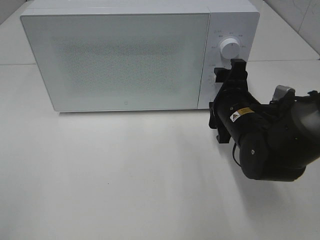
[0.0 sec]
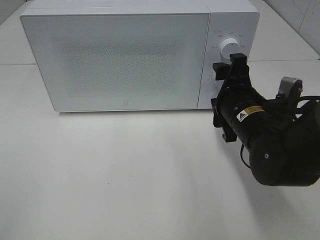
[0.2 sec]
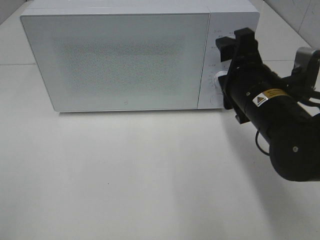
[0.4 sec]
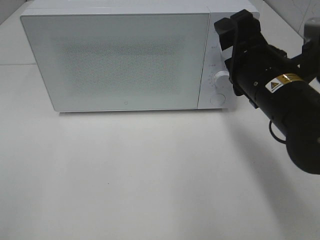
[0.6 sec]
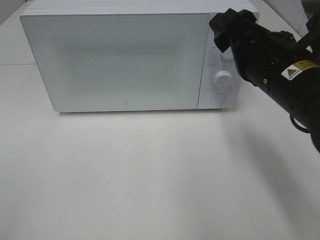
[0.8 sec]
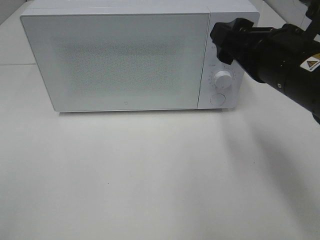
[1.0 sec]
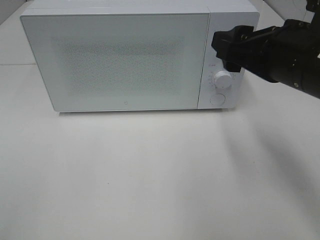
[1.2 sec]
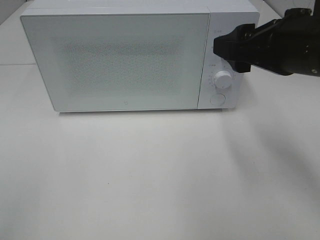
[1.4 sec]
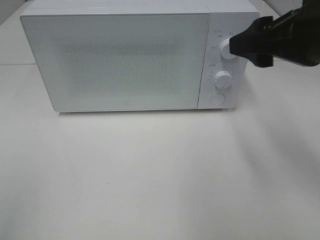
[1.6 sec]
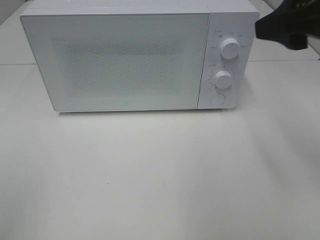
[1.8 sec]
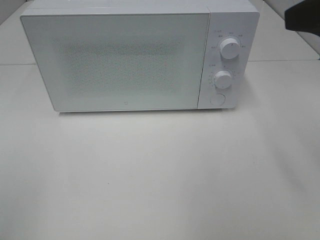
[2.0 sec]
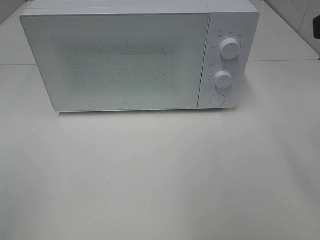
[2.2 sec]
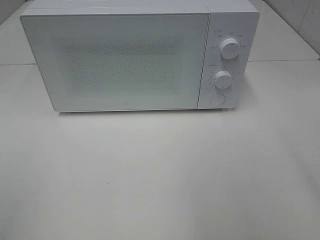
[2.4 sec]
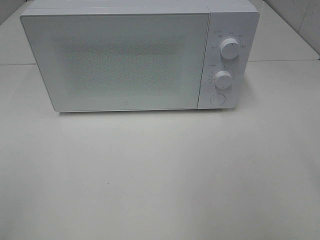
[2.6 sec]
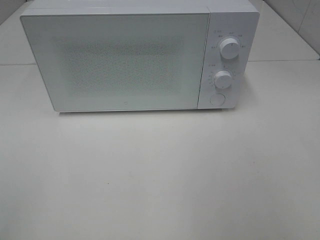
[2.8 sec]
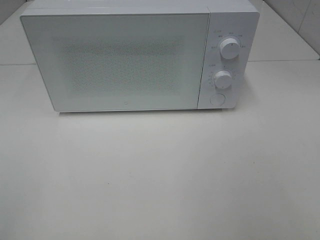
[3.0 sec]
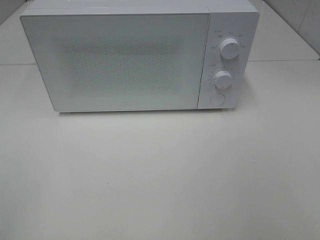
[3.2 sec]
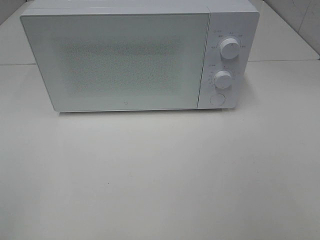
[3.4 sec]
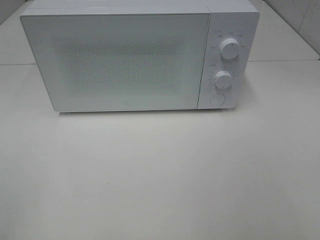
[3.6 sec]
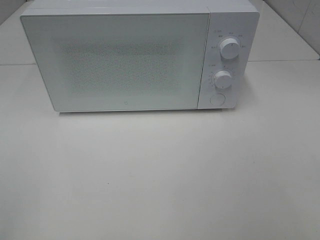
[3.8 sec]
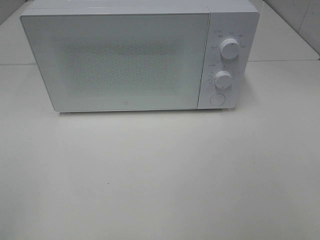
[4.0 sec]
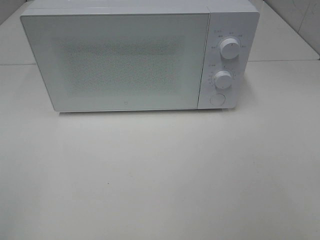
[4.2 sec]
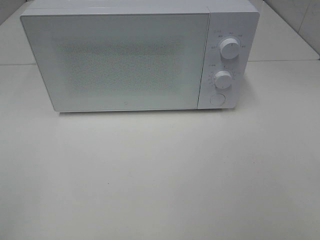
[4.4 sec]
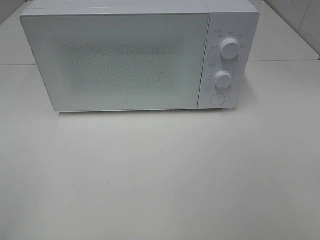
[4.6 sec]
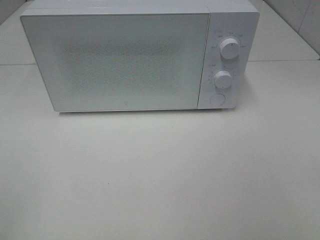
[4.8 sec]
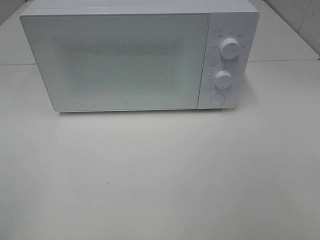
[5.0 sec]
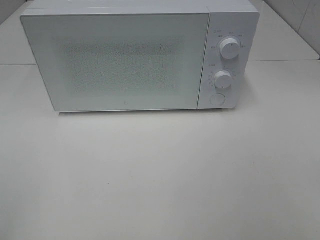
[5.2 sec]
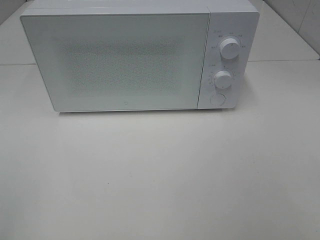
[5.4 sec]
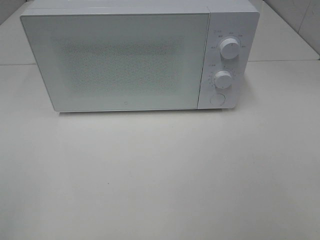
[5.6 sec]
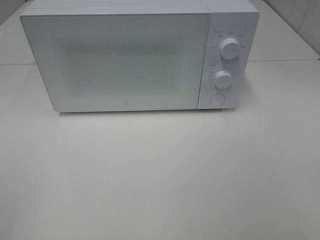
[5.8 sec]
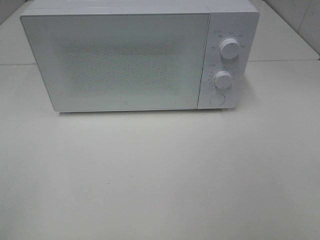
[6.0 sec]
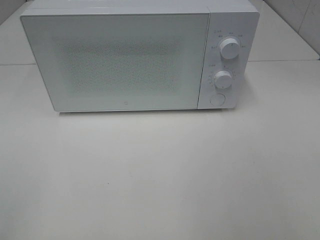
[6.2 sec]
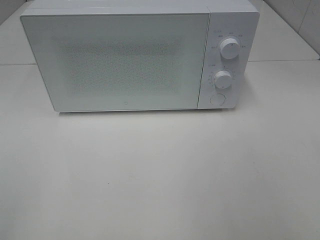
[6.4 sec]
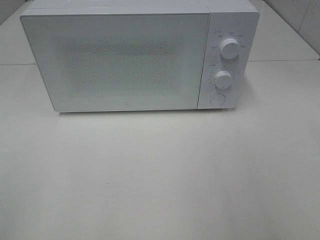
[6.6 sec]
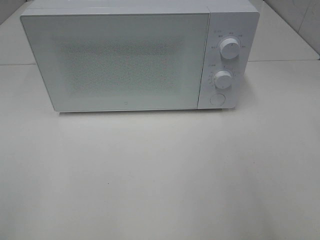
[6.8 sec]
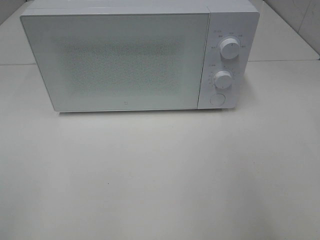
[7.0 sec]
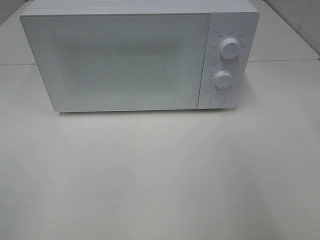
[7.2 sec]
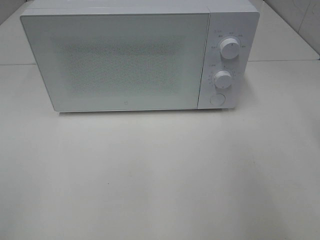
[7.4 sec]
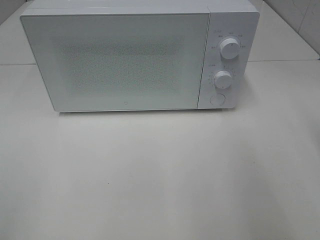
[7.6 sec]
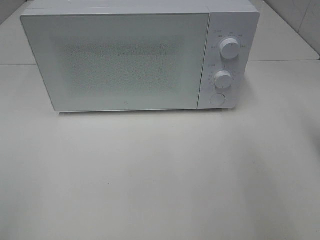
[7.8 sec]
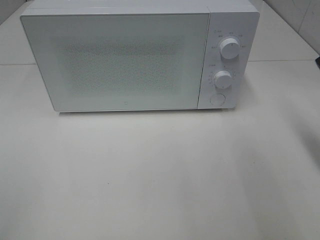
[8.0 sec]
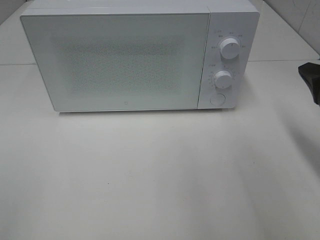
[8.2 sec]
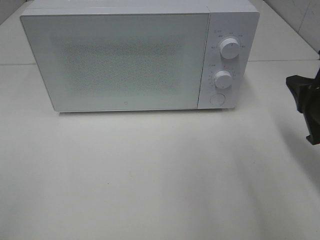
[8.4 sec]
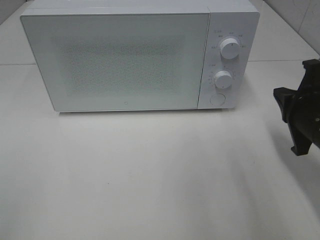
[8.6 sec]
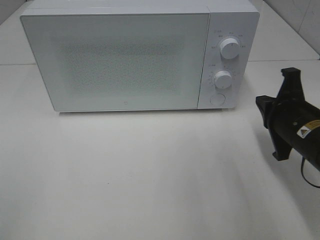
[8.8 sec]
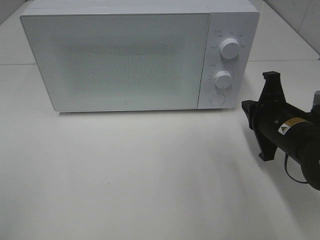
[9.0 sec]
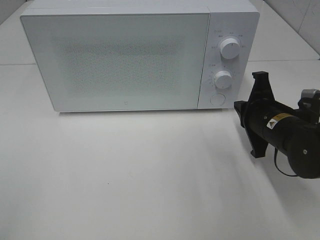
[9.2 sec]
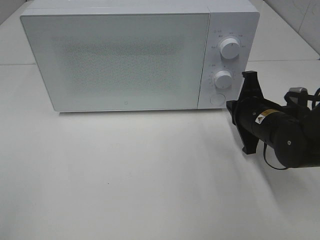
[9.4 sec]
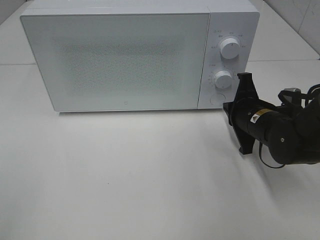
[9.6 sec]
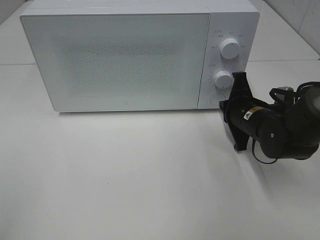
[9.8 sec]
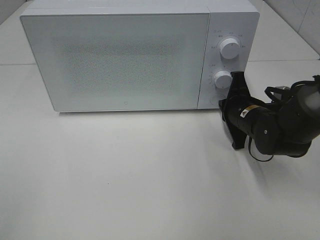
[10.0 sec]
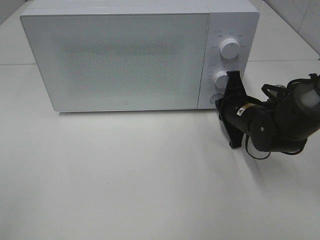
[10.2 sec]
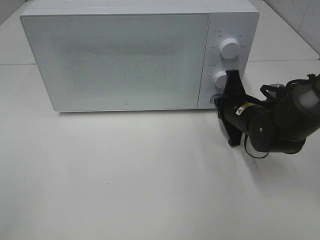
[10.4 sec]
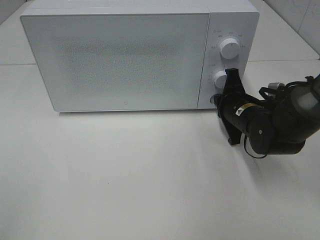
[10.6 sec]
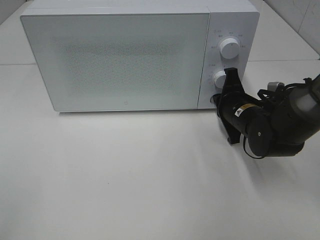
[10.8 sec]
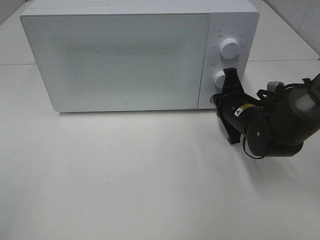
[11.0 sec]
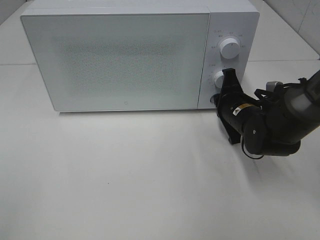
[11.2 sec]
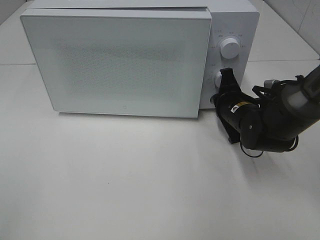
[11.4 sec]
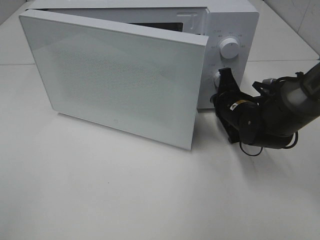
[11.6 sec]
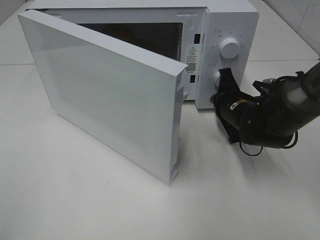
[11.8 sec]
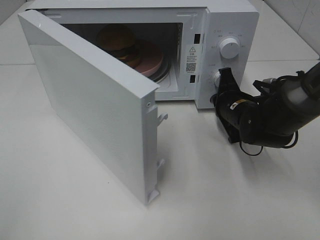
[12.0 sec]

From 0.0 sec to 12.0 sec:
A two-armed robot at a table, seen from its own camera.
Task of the whole recording: Heat the burger.
From 0.0 sec to 1.6 sec: The right gripper travels upward by roughly 20 cm.
From 1.6 sec to 3.0 sec: The right gripper heads backward and to the right, covering some 20 cm.
From 4.4 sec to 6.0 sec: Both grippers stay about where they are.
From 7.6 sec to 9.0 sec: The right gripper shifts roughly 20 cm downward, forward and to the left.
From 9.0 sec to 10.4 sec: The right gripper travels forward by some 10 cm.

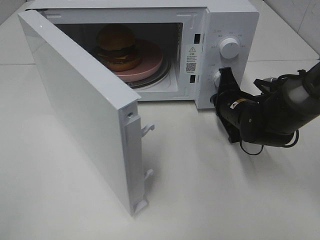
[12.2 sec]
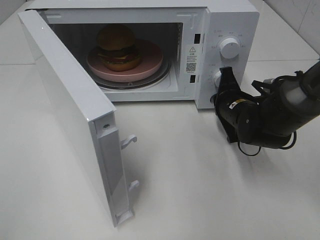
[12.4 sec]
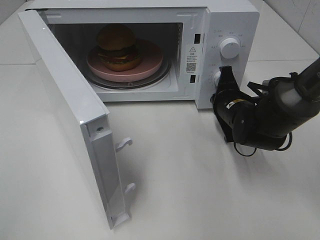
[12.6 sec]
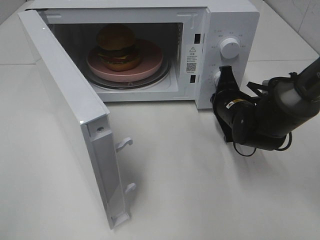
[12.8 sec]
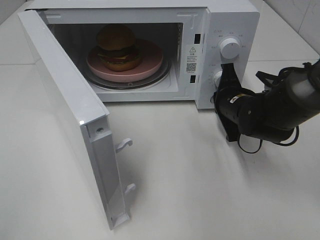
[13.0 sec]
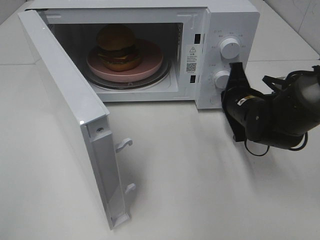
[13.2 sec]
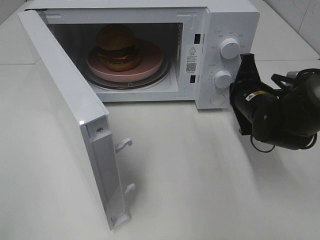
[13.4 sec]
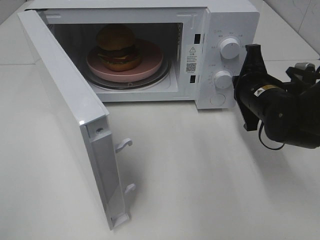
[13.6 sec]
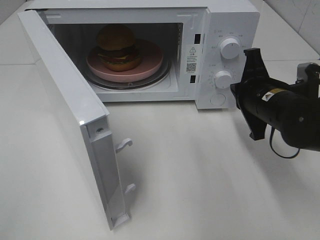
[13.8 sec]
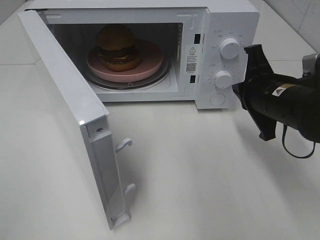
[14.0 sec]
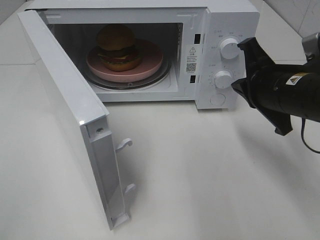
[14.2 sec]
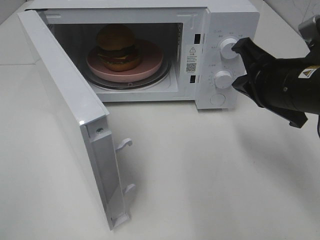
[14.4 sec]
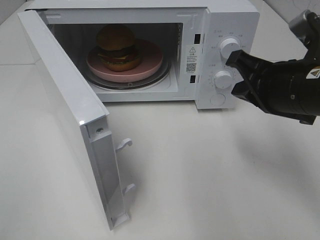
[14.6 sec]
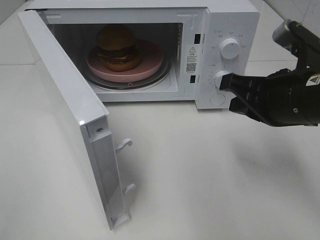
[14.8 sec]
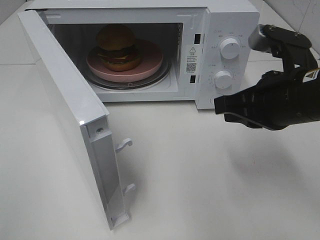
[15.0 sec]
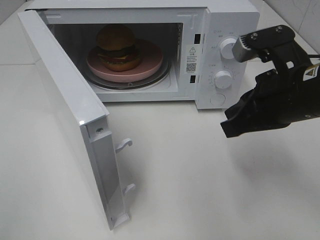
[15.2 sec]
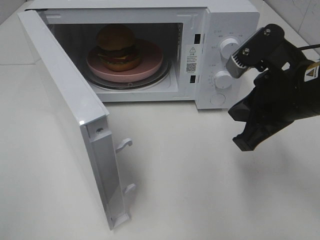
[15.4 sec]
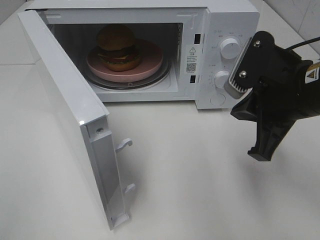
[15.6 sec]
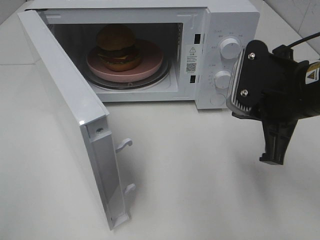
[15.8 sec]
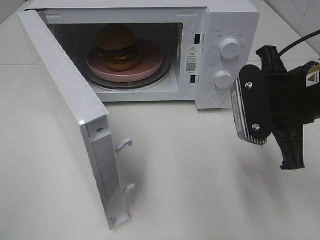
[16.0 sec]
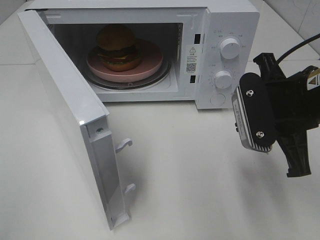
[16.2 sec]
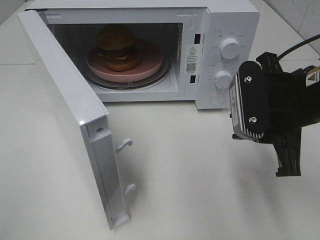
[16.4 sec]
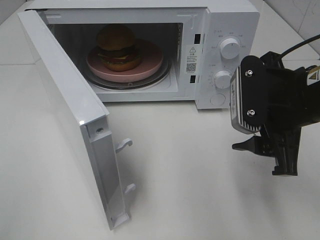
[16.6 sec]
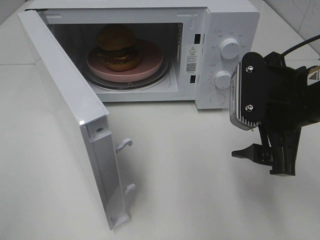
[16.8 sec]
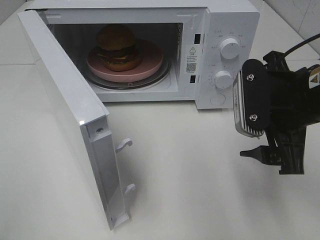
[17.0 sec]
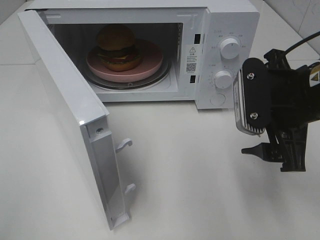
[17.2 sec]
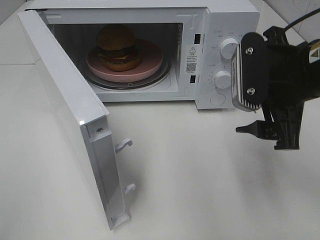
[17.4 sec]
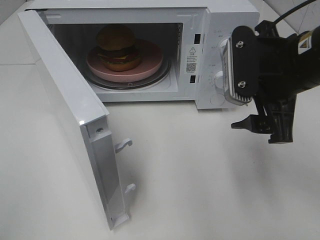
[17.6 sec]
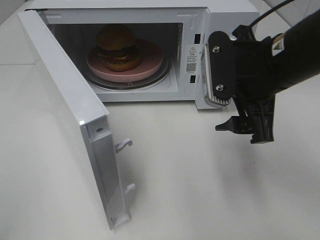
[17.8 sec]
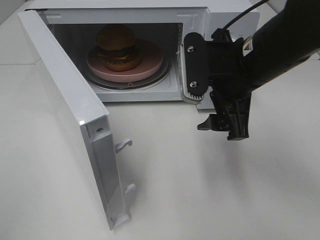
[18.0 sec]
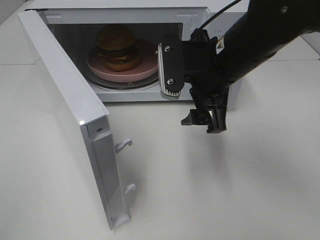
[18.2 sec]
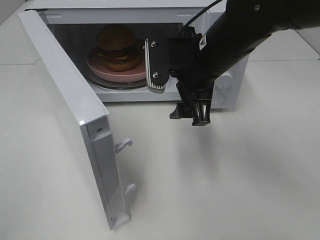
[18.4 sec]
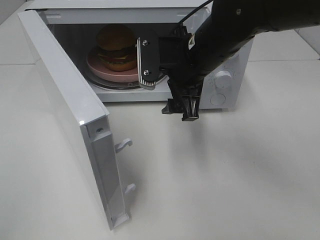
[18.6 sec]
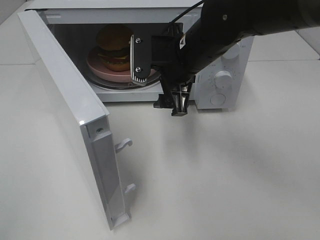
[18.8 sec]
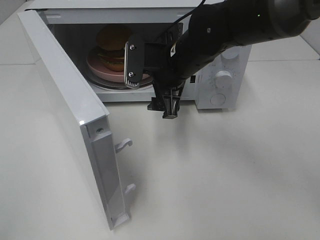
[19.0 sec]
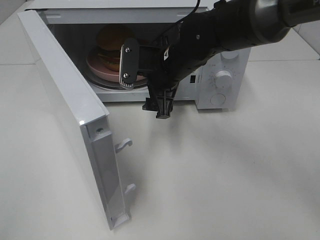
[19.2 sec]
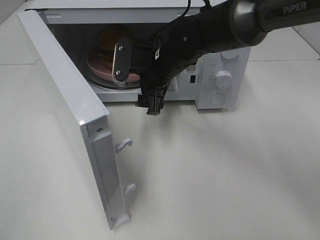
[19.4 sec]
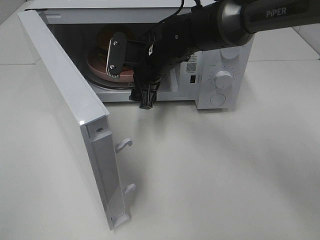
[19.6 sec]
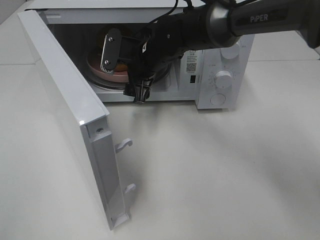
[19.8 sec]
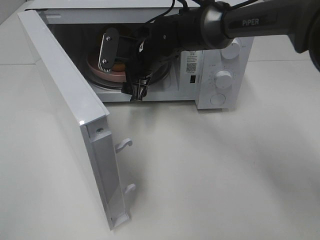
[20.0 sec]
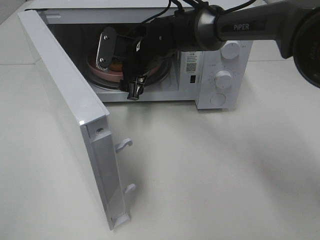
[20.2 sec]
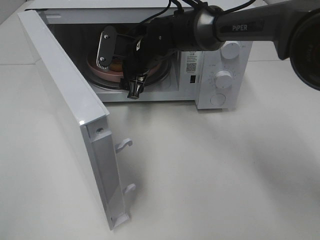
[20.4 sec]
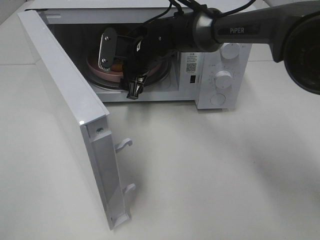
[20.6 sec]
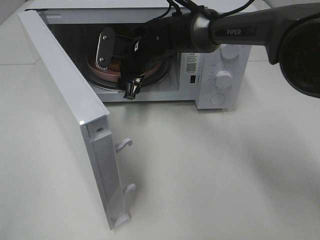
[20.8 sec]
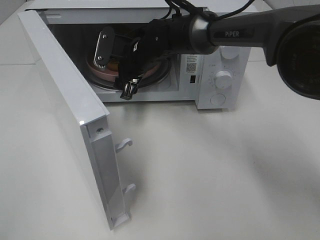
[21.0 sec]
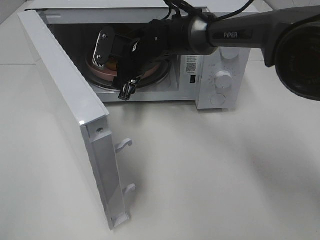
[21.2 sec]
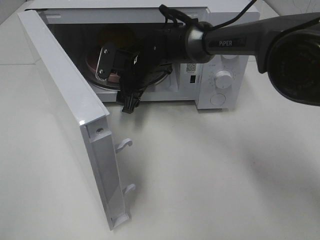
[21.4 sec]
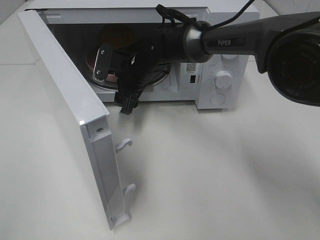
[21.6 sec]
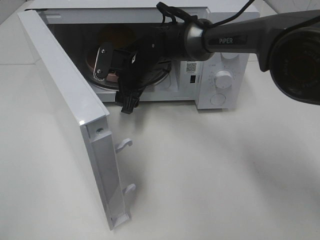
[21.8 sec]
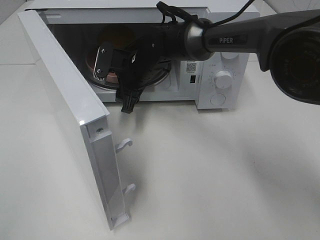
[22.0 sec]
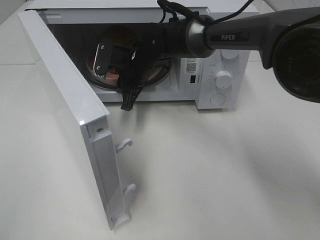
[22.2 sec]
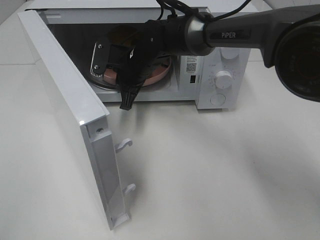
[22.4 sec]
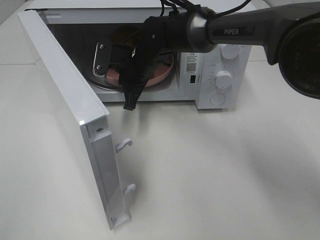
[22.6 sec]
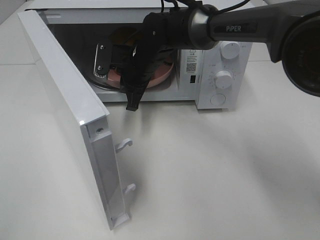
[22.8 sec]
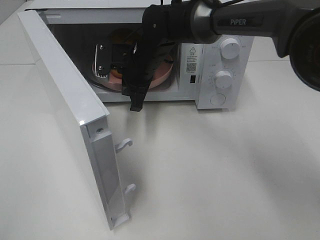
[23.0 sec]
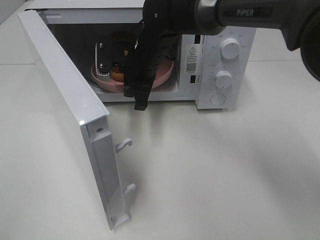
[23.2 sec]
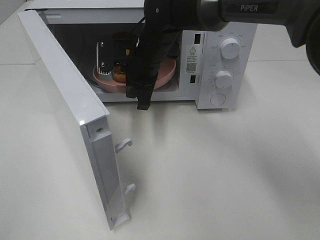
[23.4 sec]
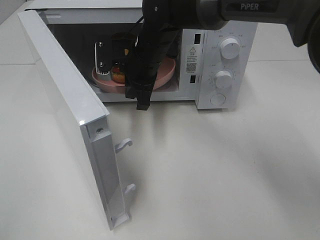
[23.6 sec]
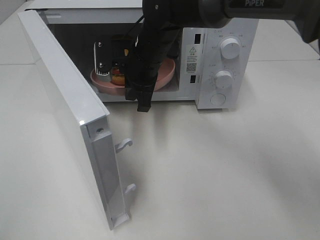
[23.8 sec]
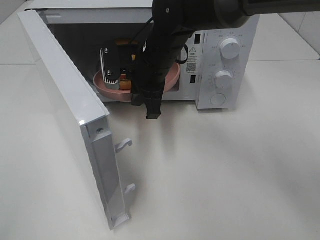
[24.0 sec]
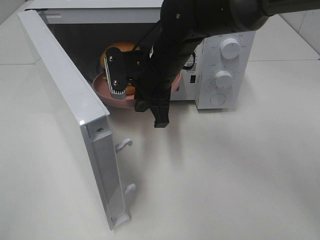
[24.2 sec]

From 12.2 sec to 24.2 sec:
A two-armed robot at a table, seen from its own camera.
Task of the whole recording: Heat the burger.
Step, from 13.4 sec to 22.2 sec: Right hand: grab the plate with the hamburger.
From 12.2 sec to 13.8 sec: The right gripper moves upward and backward, some 10 cm.
From 13.8 sec to 15.2 sec: The right gripper is displaced upward and backward by approximately 10 cm.
From 15.2 sec to 16.6 sec: The right gripper opens.
From 16.6 sec to 18.2 sec: The right gripper is displaced to the left and forward by roughly 10 cm.
From 18.2 sec to 19.8 sec: The right gripper shifts roughly 15 cm forward, to the left and downward.
From 19.8 sec to 21.2 sec: The grippers move only a little.
From 21.2 sec to 22.6 sec: The right gripper closes up.
From 22.6 sec to 24.2 sec: The right gripper goes approximately 5 cm backward.
